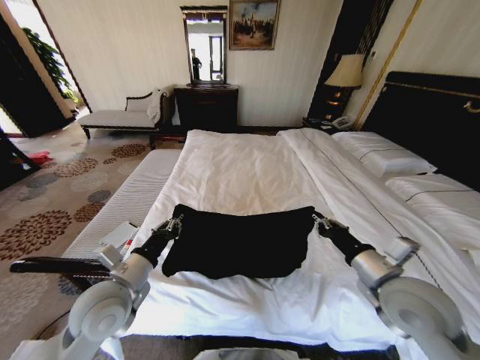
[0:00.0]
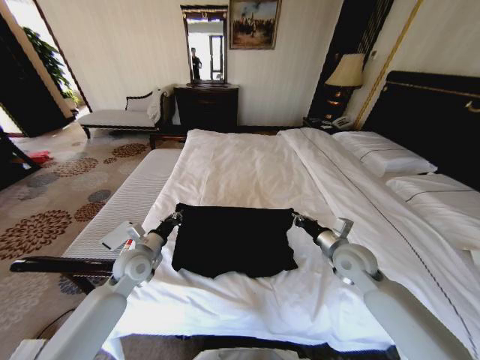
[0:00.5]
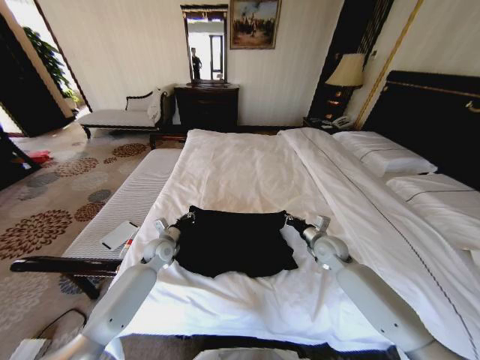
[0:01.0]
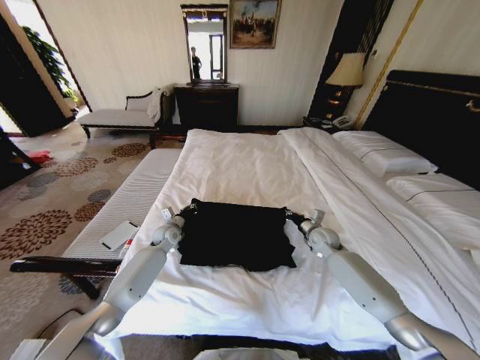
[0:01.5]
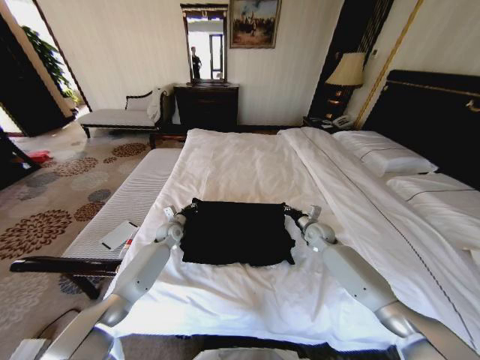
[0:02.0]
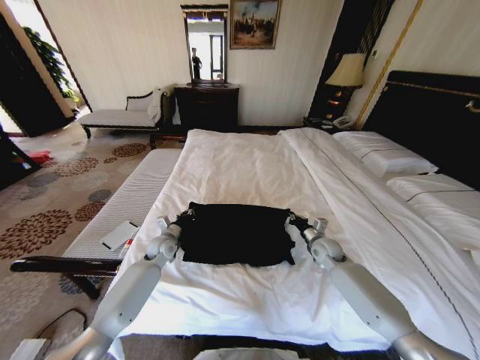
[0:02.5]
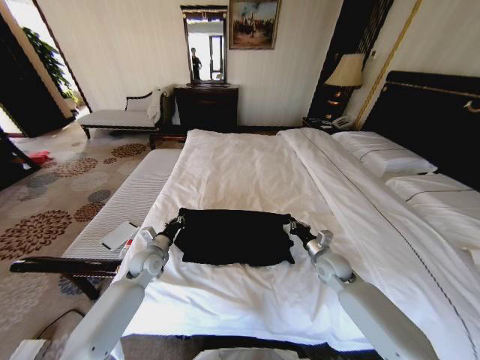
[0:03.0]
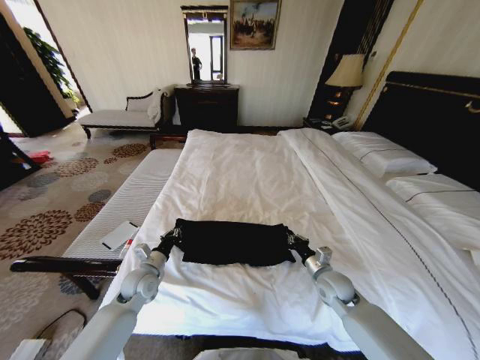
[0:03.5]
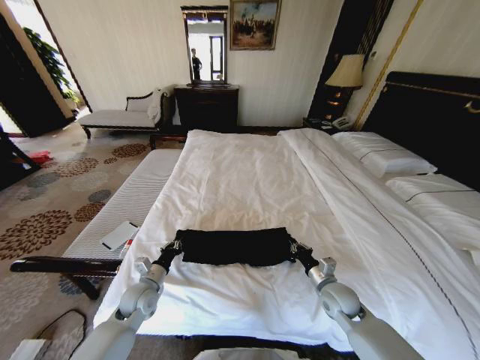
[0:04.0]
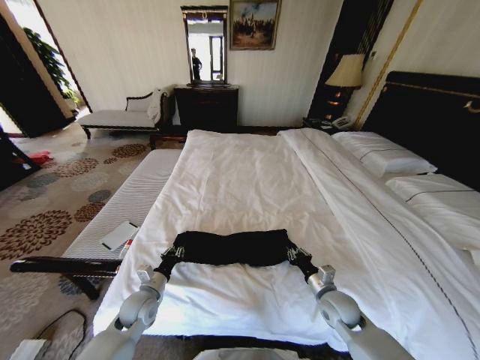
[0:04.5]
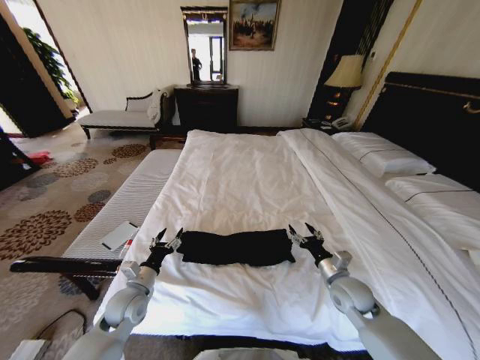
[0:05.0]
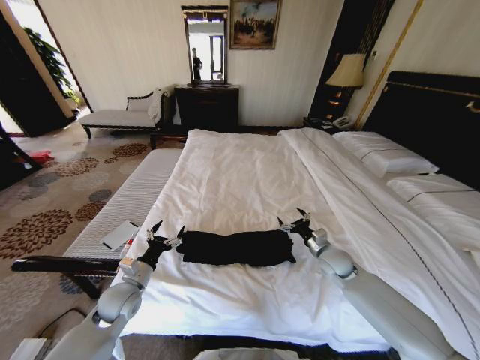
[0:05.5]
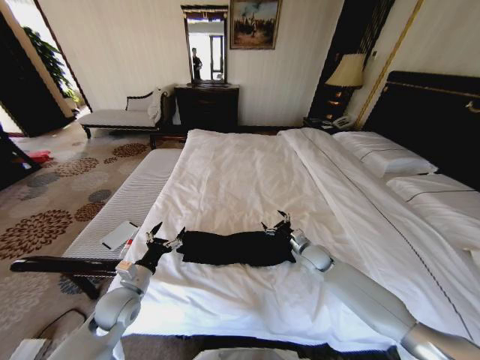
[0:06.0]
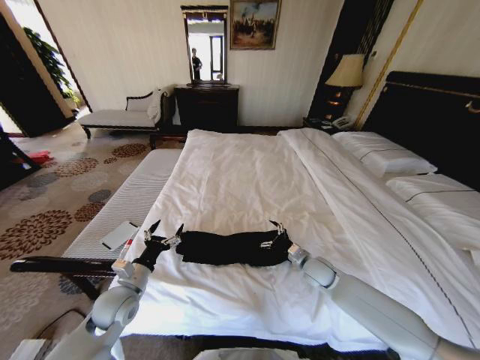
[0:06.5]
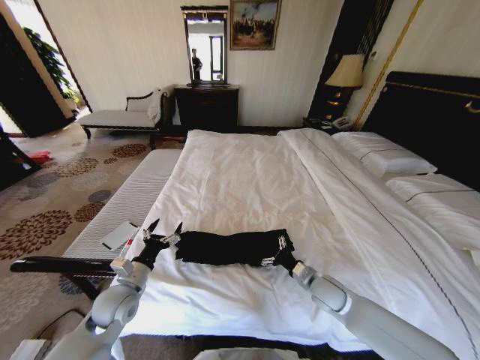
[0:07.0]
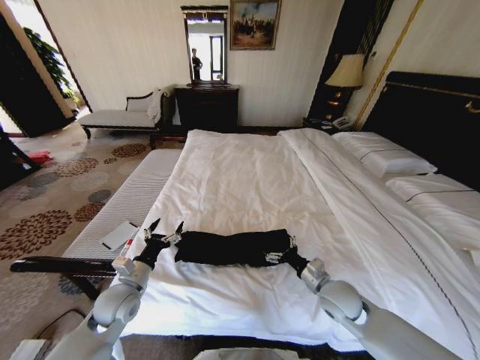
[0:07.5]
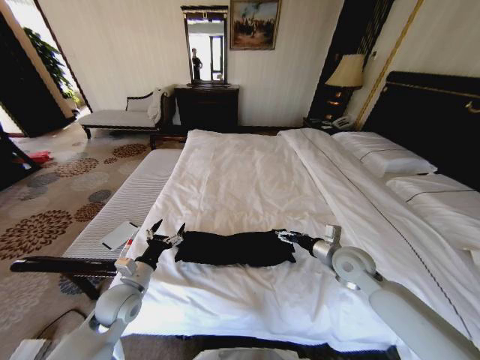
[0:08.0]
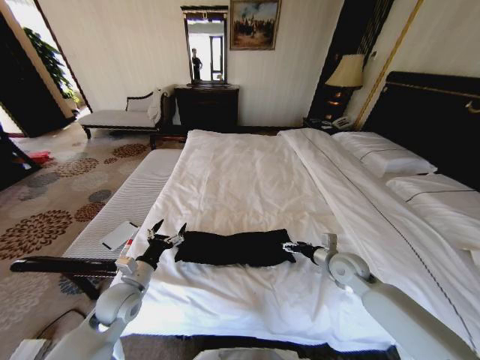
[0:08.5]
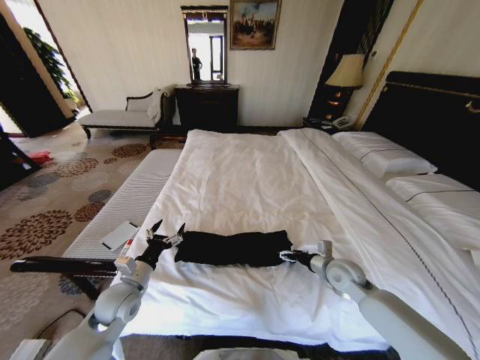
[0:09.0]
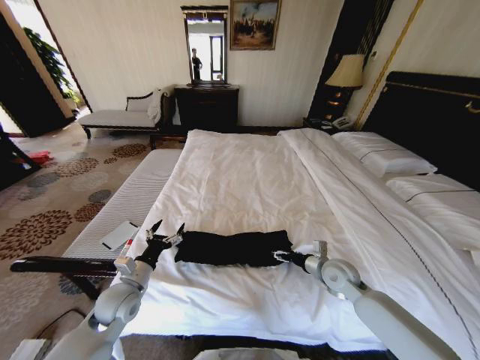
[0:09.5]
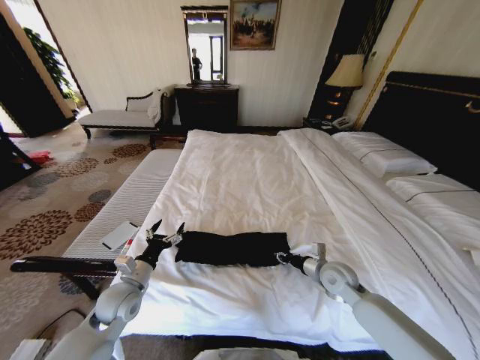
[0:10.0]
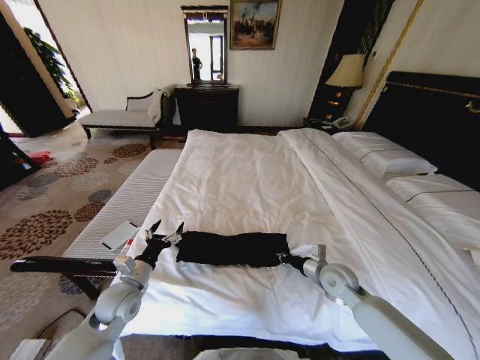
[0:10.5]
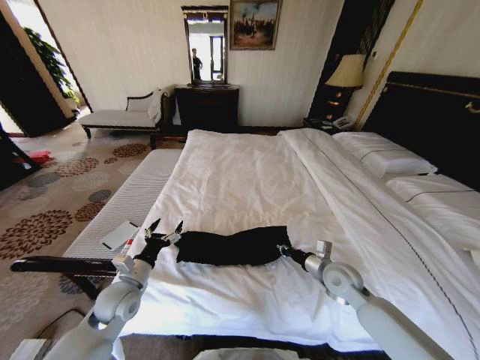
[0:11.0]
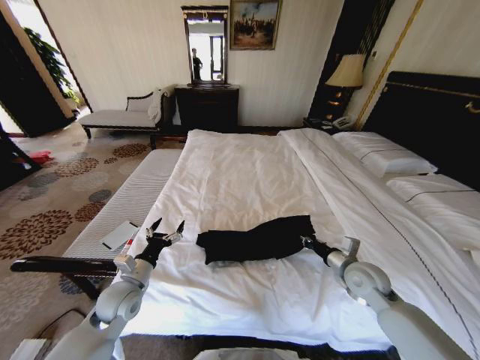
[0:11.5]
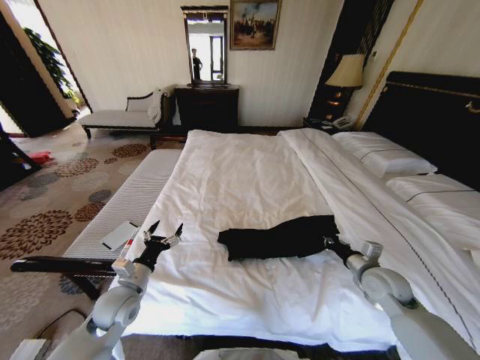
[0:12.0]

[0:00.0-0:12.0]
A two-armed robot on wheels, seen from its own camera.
Task of the whole recording: Fold the clothes on the bed.
0:00.0 to 0:02.0: Both grippers travel together forward and downward, some 35 cm.
0:02.0 to 0:04.0: The grippers both shift backward by about 20 cm.
0:04.0 to 0:06.0: The right gripper moves forward, approximately 15 cm, and opens up. Meanwhile the left gripper heads upward, covering approximately 5 cm, and opens.
0:06.0 to 0:08.0: The right gripper heads upward and backward, covering some 15 cm.
0:08.0 to 0:10.0: The right gripper shifts approximately 5 cm downward, and closes.
0:10.0 to 0:12.0: The right gripper is displaced to the right by some 10 cm, and closes up.

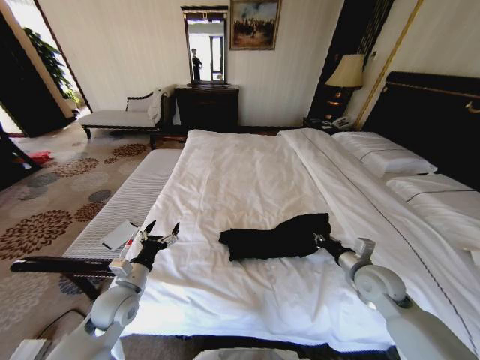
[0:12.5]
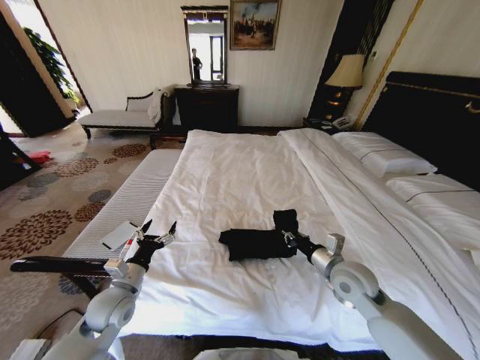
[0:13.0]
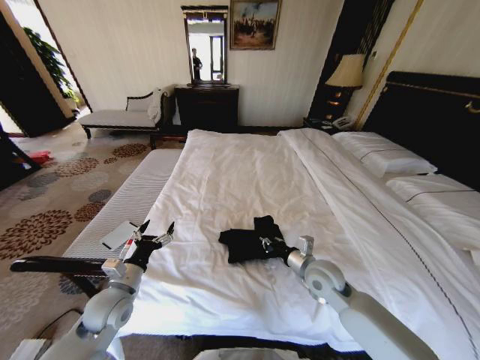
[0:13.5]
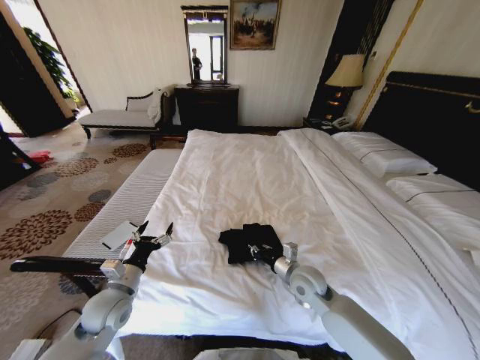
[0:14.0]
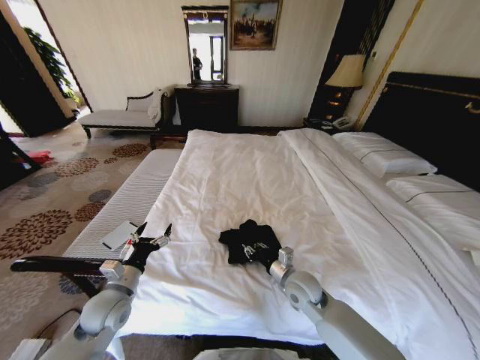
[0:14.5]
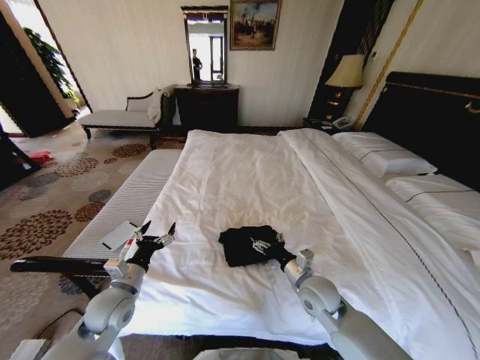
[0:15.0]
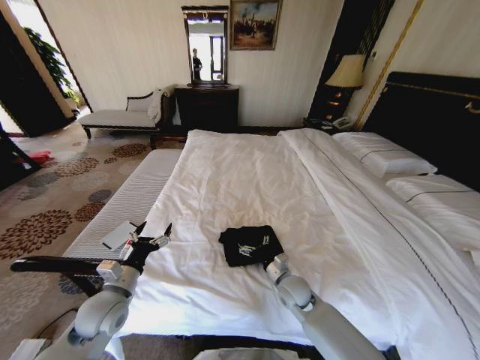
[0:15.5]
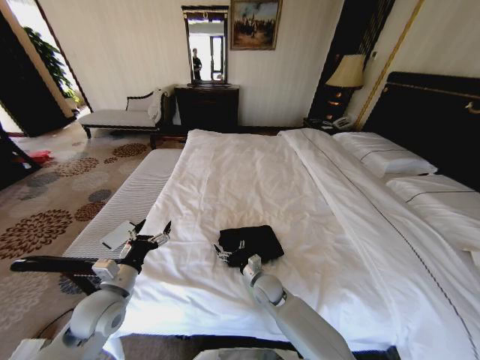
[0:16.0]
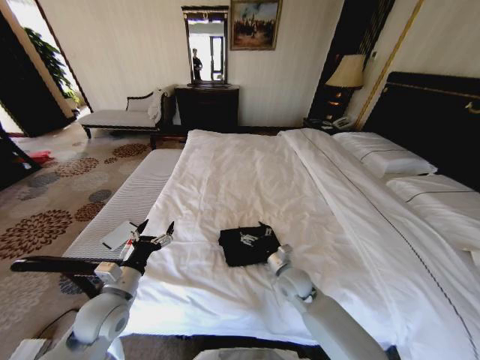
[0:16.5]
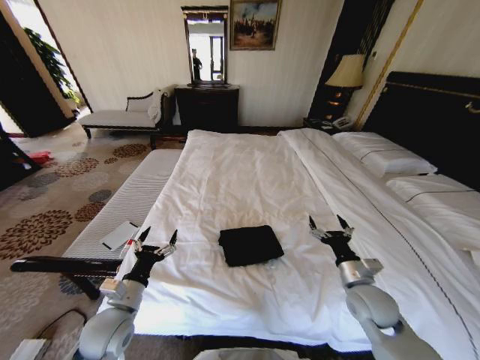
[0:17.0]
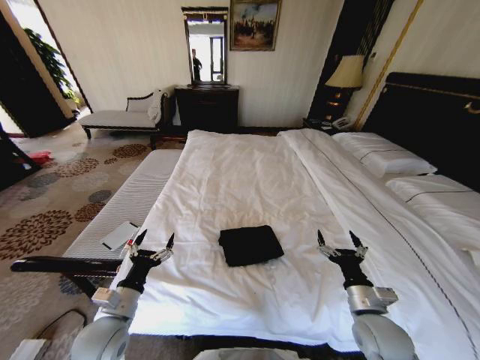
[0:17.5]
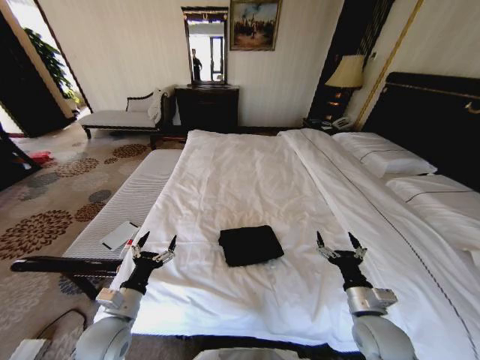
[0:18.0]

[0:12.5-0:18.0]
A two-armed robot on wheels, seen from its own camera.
Task of the whole recording: Fold the clothes on the bed.
0:12.5 to 0:14.5: The right gripper moves to the left, approximately 20 cm.
0:14.5 to 0:16.0: The right gripper goes about 10 cm downward and to the left, and opens.
0:16.0 to 0:18.0: The right gripper moves to the right, backward and upward, approximately 25 cm. The left gripper moves some 5 cm.

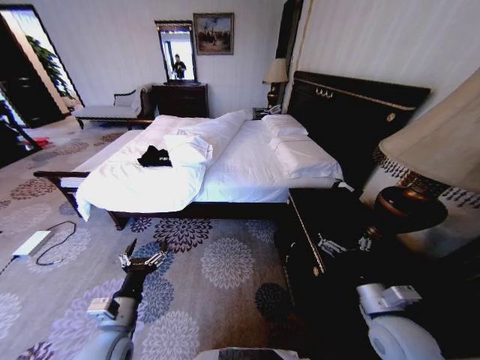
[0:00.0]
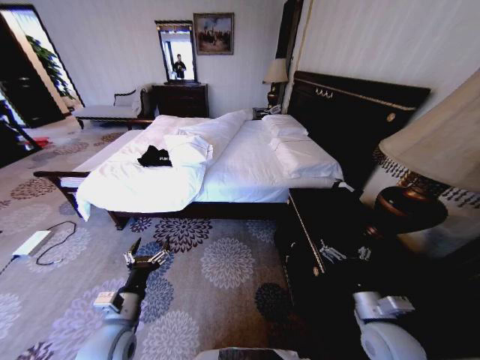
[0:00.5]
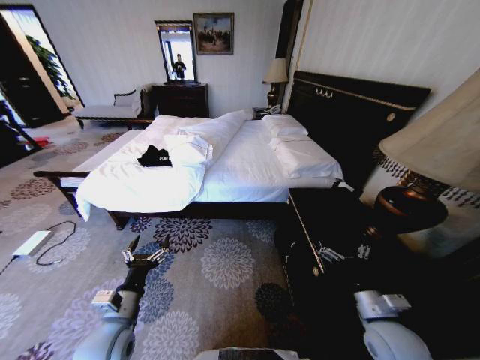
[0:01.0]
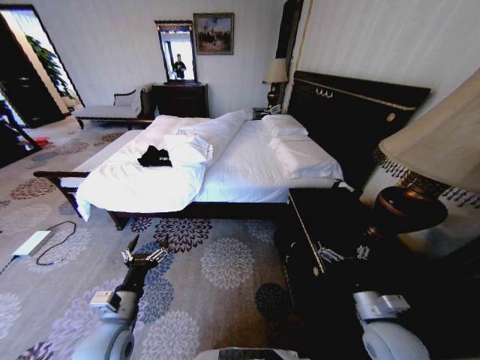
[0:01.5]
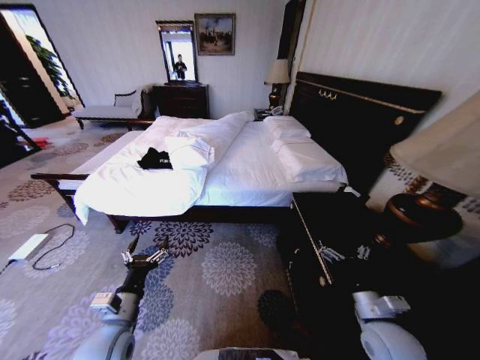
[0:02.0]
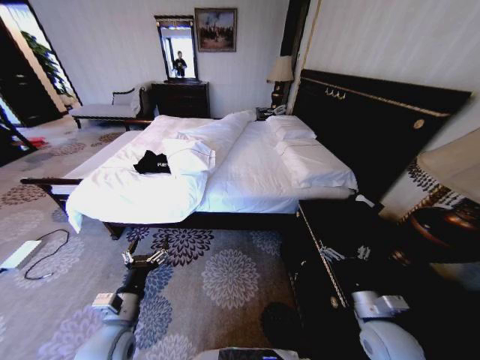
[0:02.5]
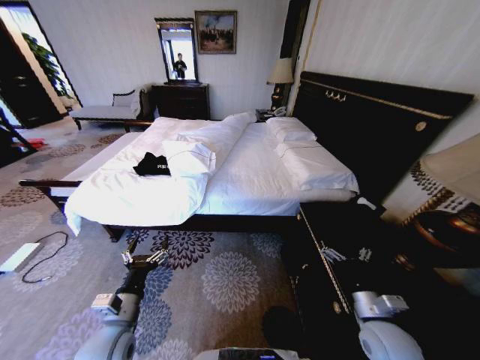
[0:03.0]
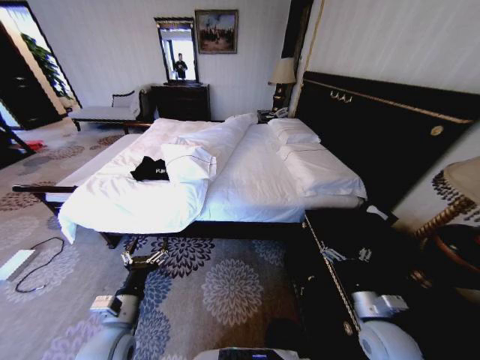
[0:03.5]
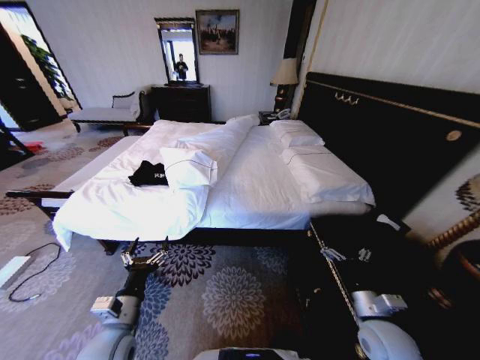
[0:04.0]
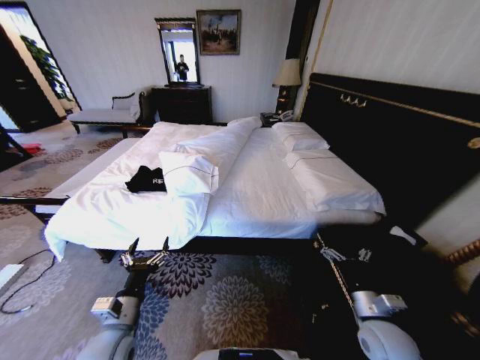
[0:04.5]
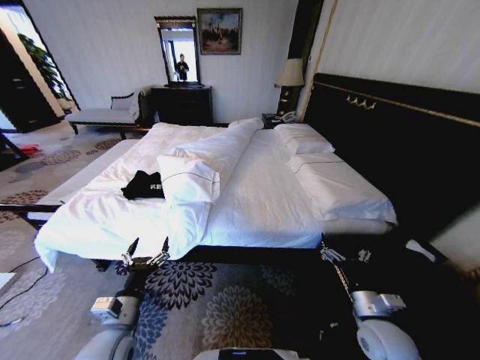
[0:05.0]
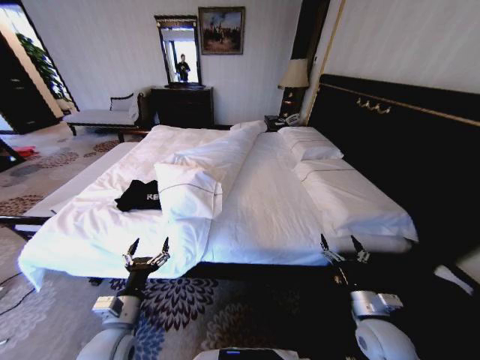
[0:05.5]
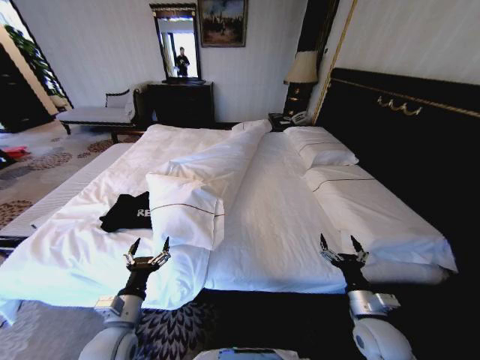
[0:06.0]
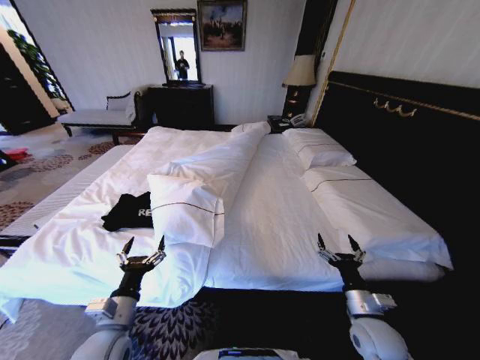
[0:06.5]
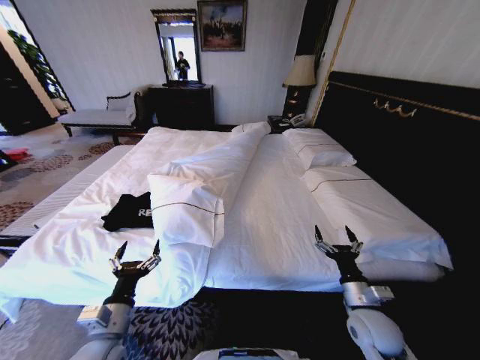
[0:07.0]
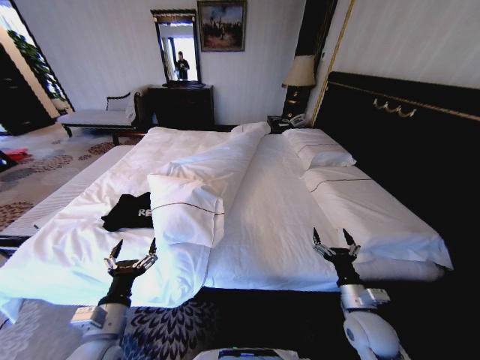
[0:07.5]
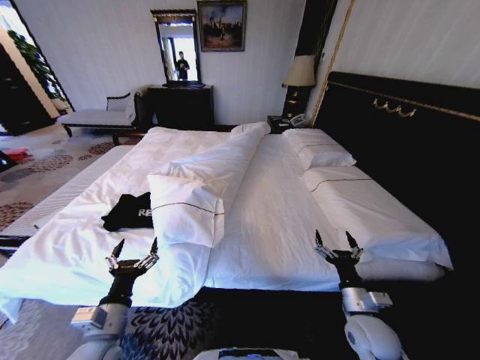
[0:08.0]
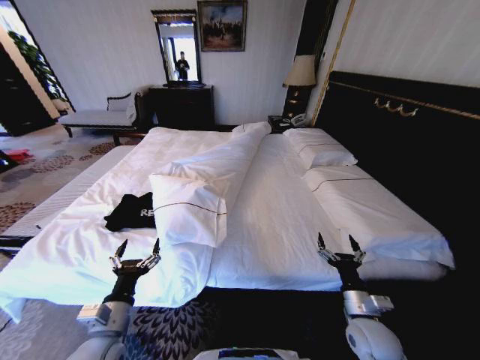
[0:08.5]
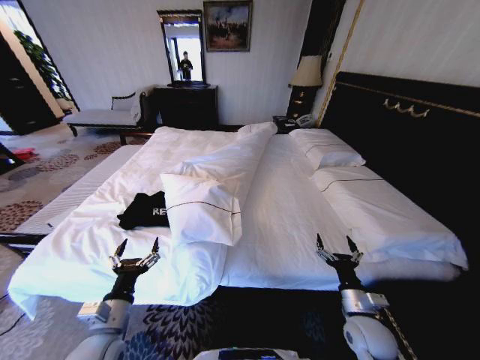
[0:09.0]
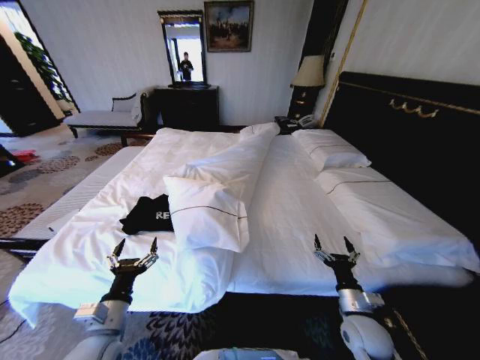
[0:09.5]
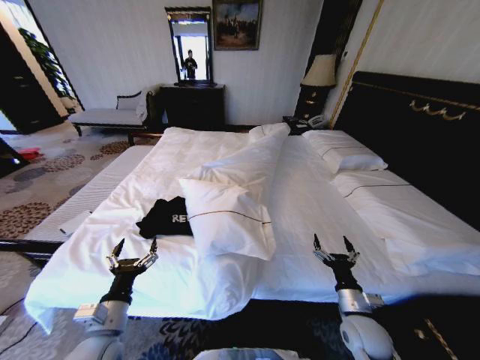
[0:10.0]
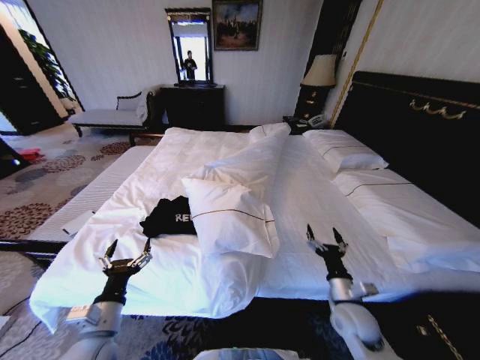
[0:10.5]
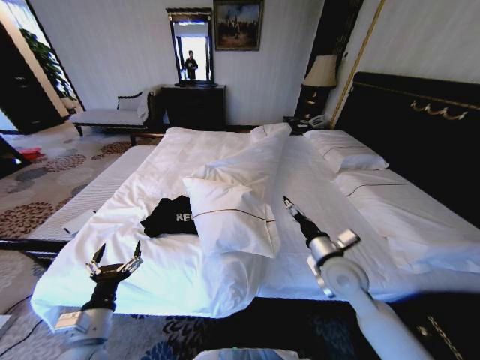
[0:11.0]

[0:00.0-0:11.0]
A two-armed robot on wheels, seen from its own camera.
Task of the whole recording: Fold the clothes on the bed.
0:09.0 to 0:11.0: The right gripper shifts some 15 cm upward, forward and to the left.
